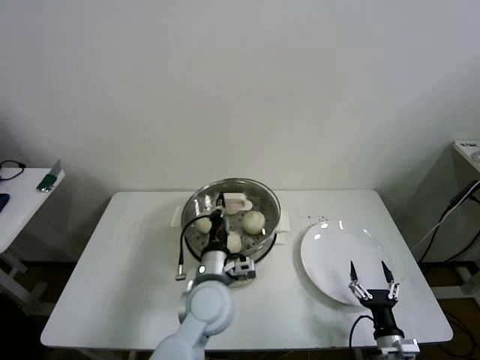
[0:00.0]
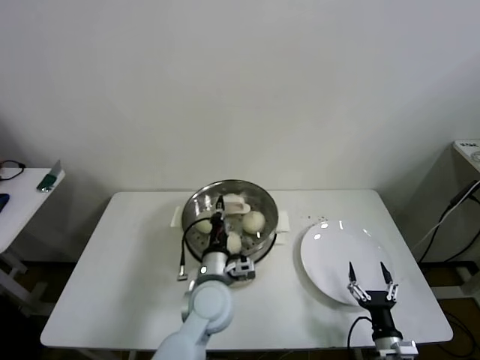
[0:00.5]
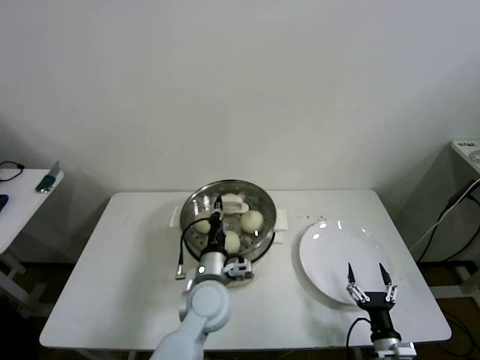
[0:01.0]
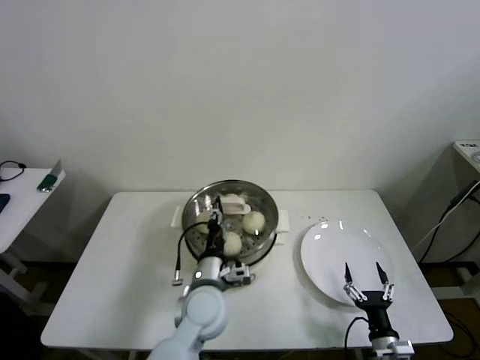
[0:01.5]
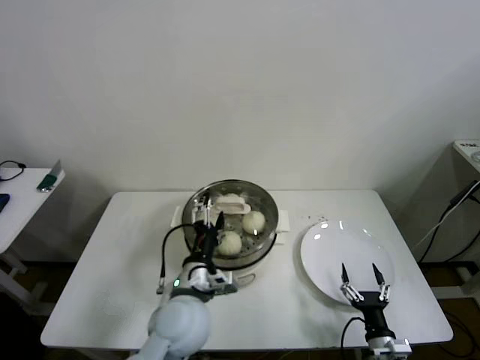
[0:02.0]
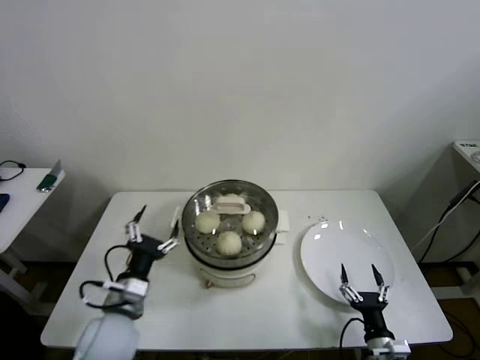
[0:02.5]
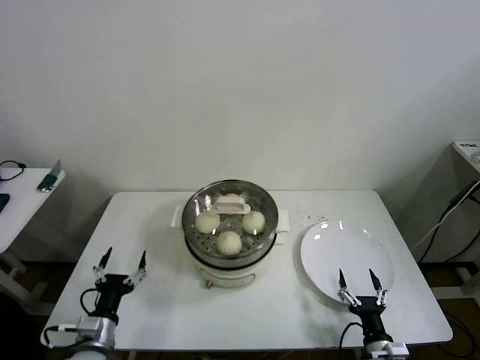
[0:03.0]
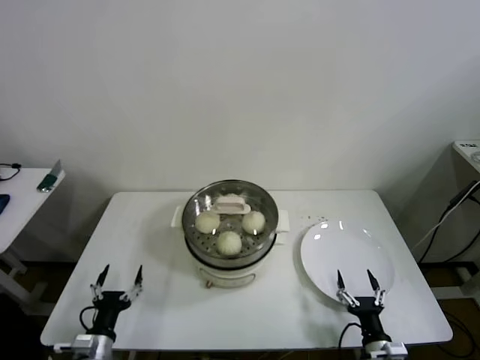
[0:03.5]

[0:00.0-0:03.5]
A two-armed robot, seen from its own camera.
0:00.0 to 0:02.0: The left gripper opens.
0:02.0 to 0:03.5: The left gripper shifts some 30 cm to the left, downward and backward.

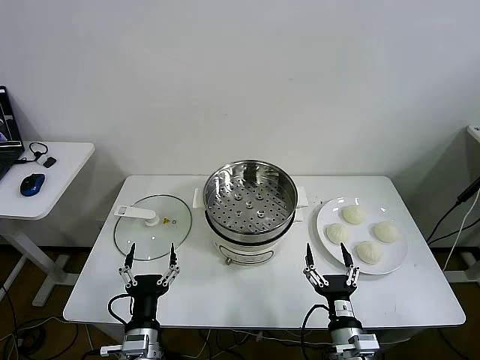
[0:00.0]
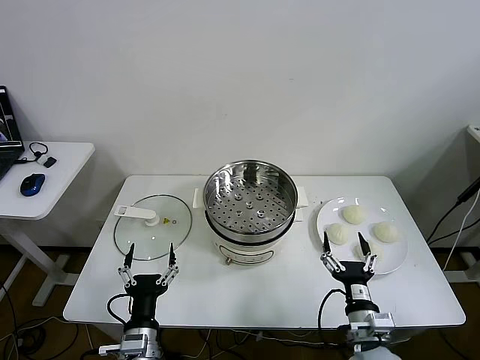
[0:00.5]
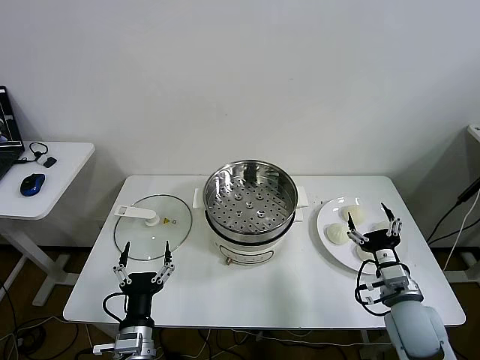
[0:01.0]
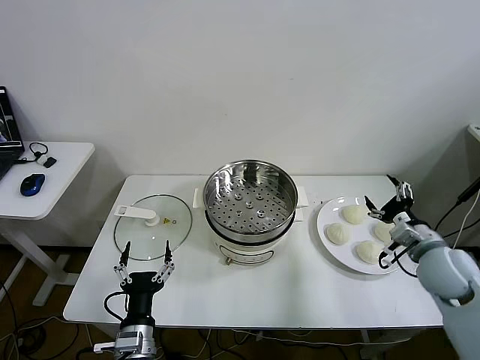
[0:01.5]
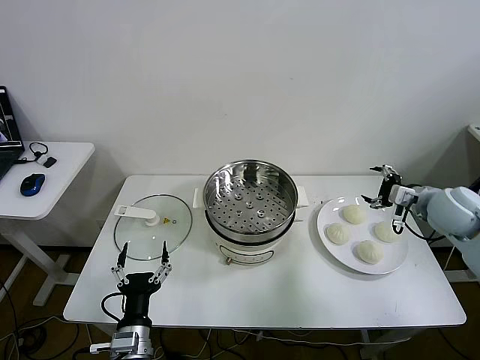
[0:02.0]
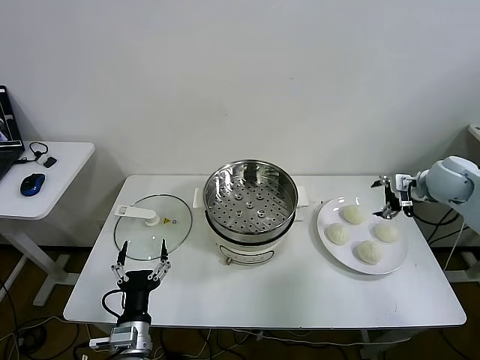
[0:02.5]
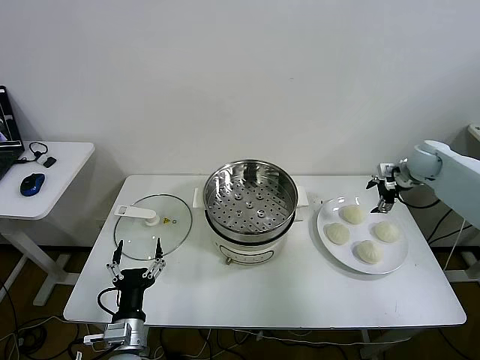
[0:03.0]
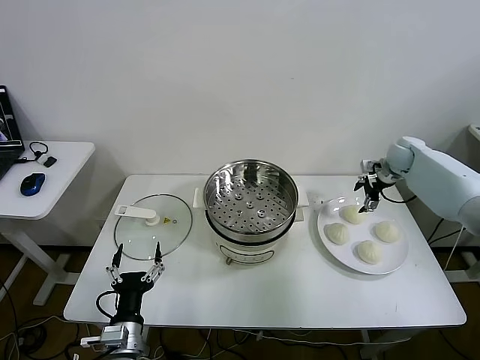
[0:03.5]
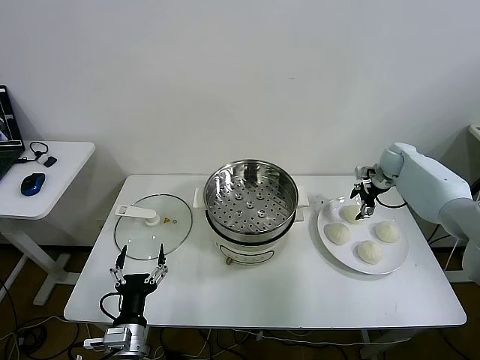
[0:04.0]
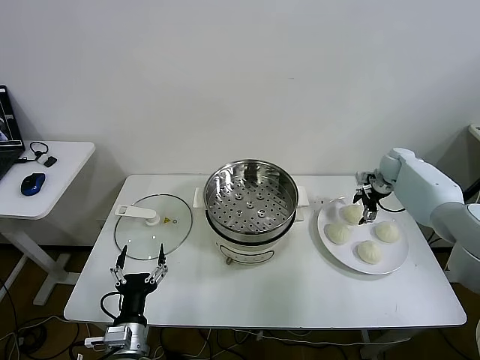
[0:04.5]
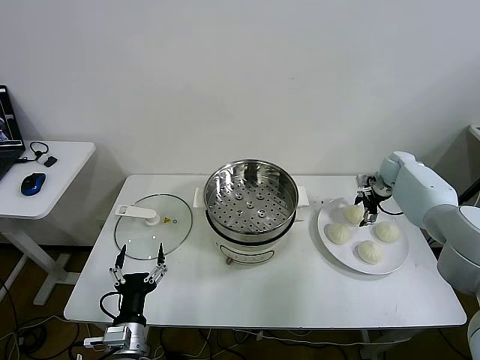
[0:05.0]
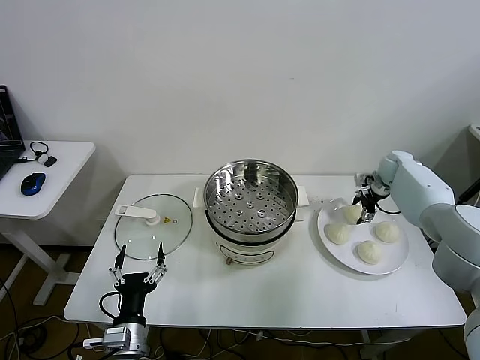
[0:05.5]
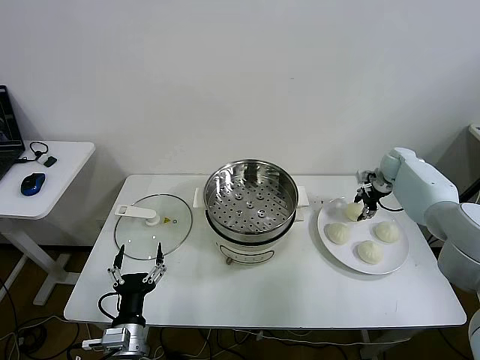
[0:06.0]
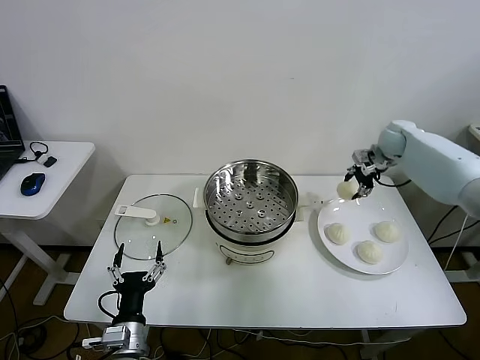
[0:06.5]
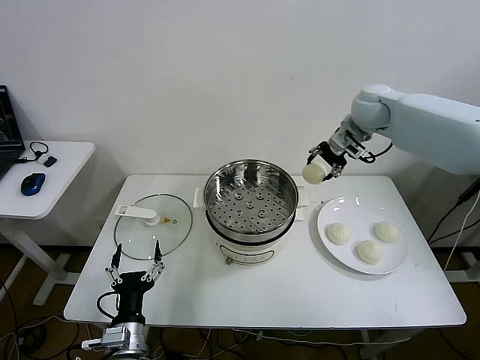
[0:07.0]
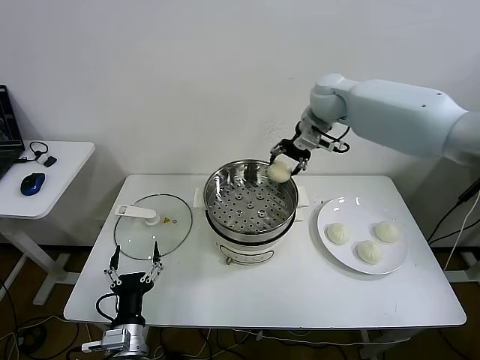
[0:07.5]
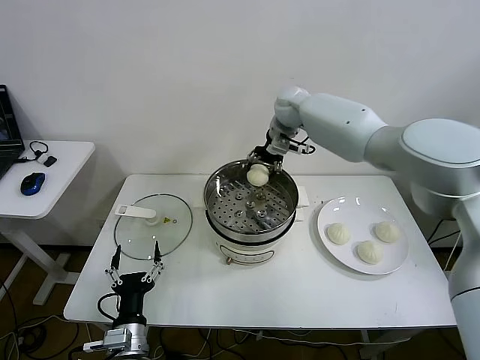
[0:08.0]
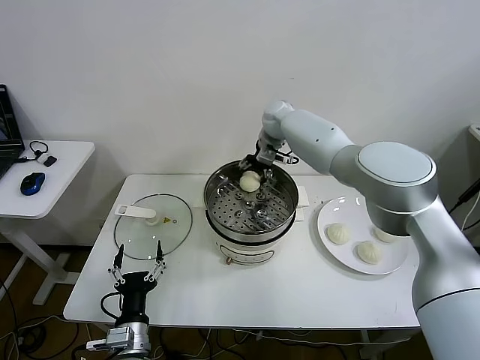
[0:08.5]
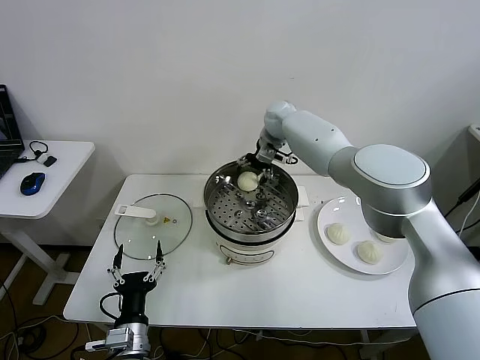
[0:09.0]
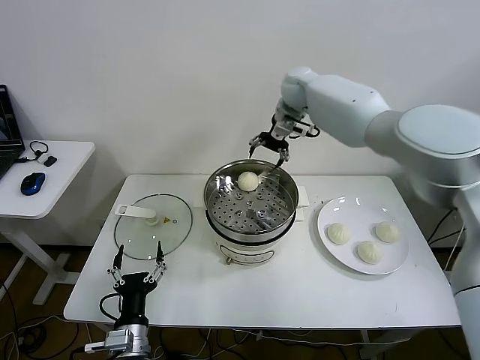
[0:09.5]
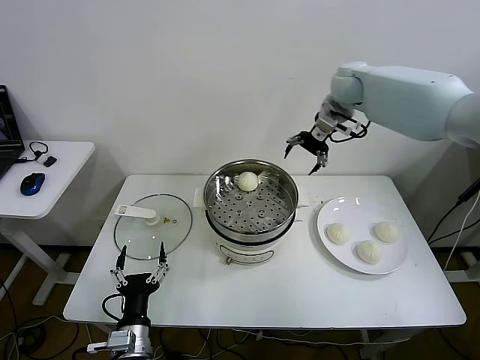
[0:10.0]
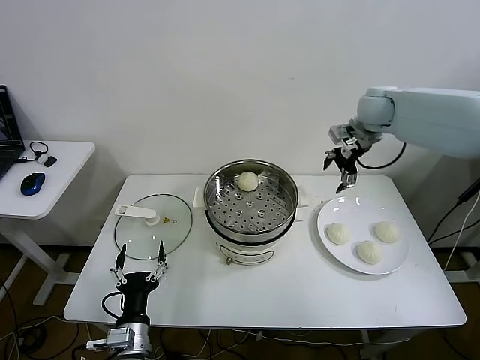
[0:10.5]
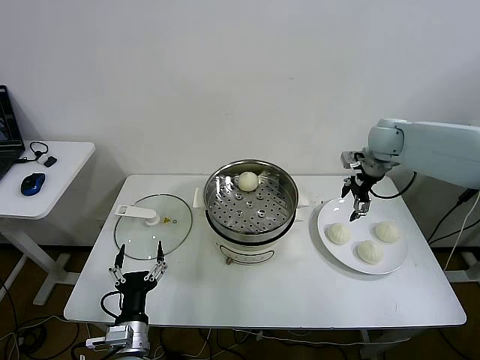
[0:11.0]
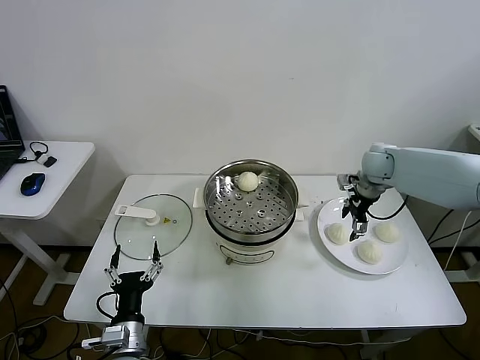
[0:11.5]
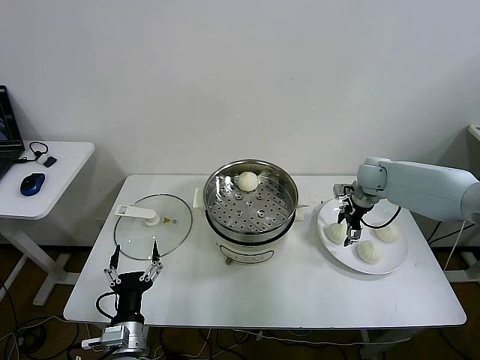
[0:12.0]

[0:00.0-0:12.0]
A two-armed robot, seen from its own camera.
Step, 0:00.0 to 0:05.5: Grasp the baozi in the plate with right gripper.
Step, 0:06.0 to 0:09.0: Place the baozi on the steamer with right gripper.
0:02.0 to 0:04.0: The right gripper heads forward, covering about 20 cm.
0:04.0 to 0:06.0: The right gripper closes up.
0:06.0 to 0:08.0: The right gripper shifts some 35 cm to the left and upward.
0:08.0 to 0:10.0: The right gripper goes some 15 cm to the right and upward.
0:10.0 to 0:12.0: The right gripper shifts approximately 20 cm downward.

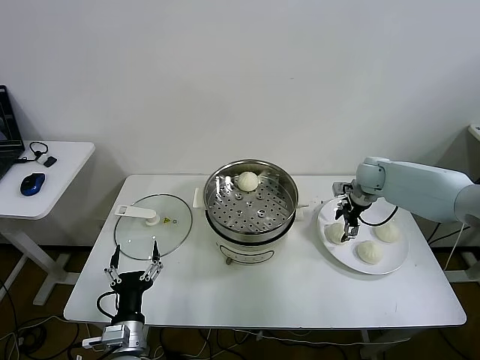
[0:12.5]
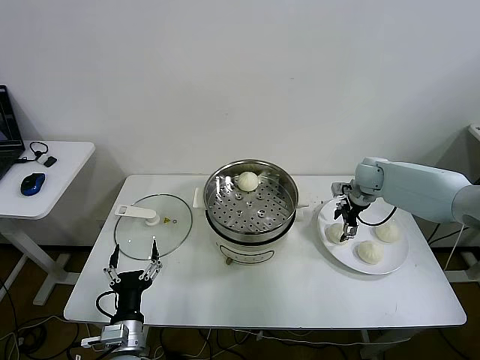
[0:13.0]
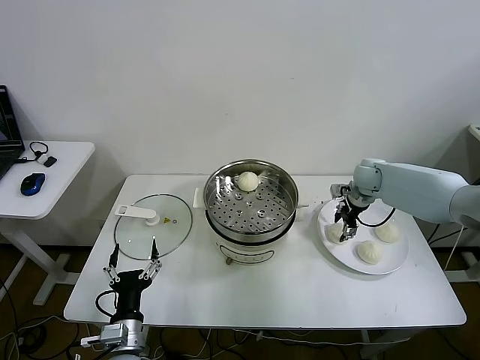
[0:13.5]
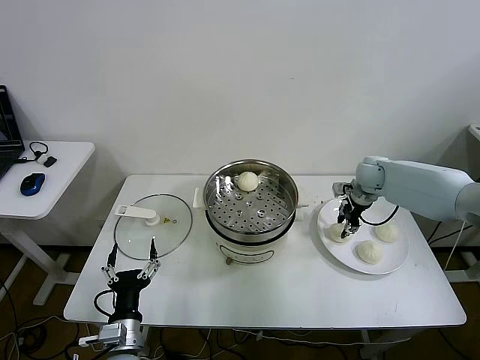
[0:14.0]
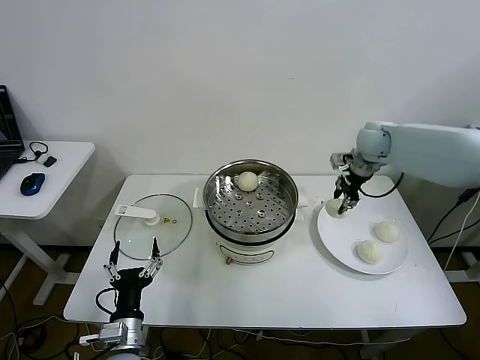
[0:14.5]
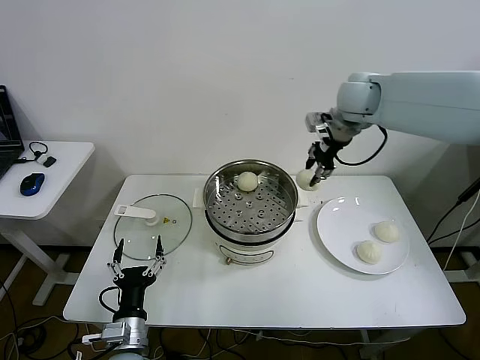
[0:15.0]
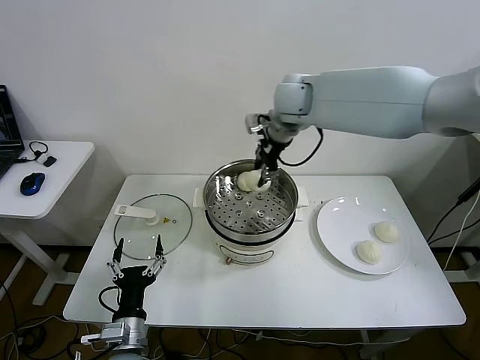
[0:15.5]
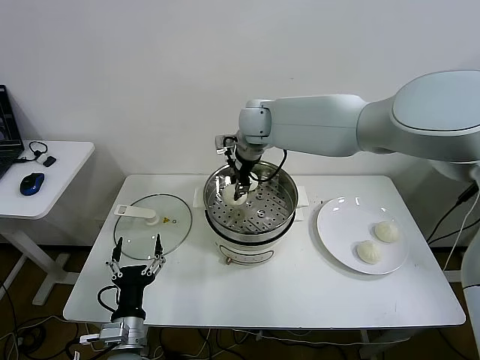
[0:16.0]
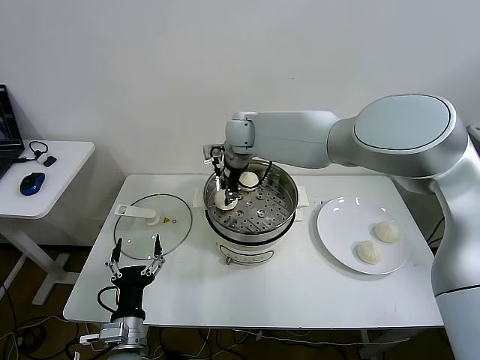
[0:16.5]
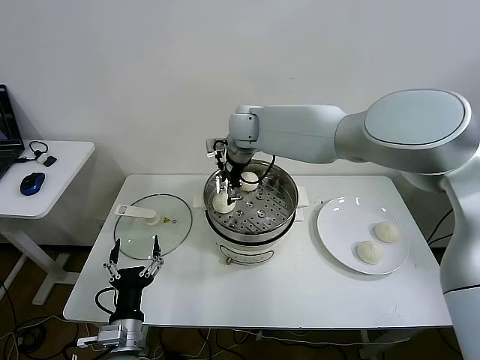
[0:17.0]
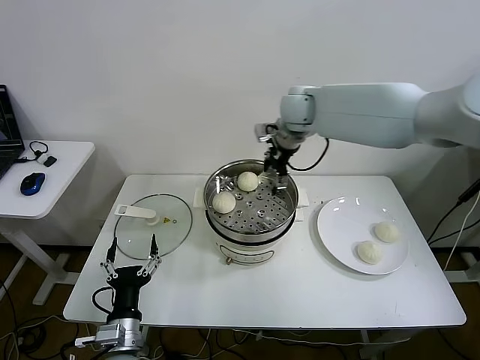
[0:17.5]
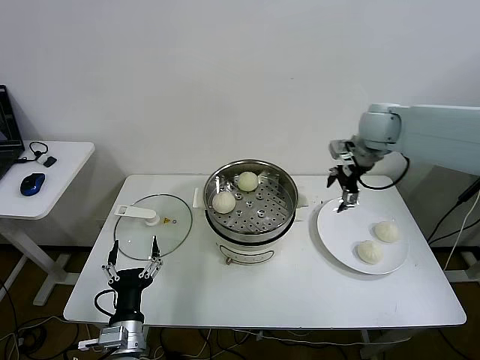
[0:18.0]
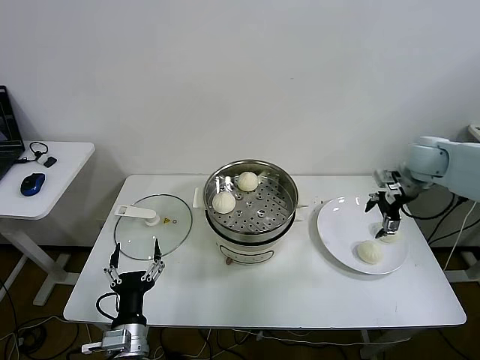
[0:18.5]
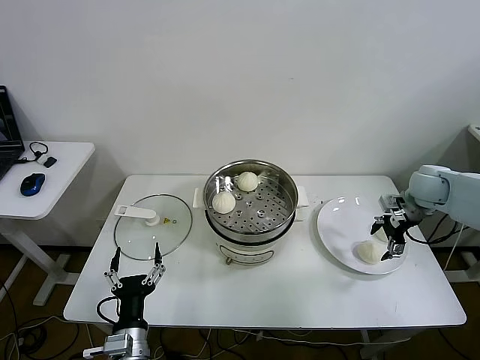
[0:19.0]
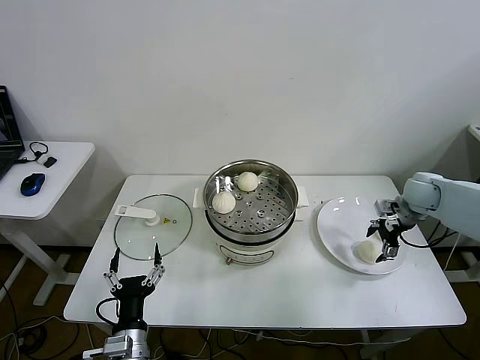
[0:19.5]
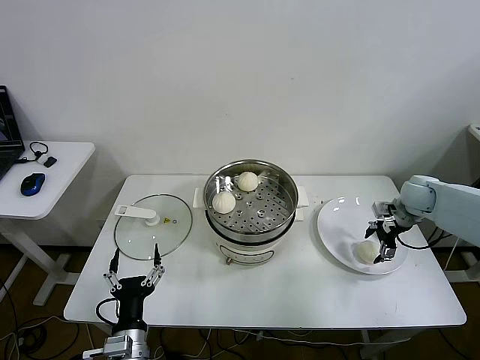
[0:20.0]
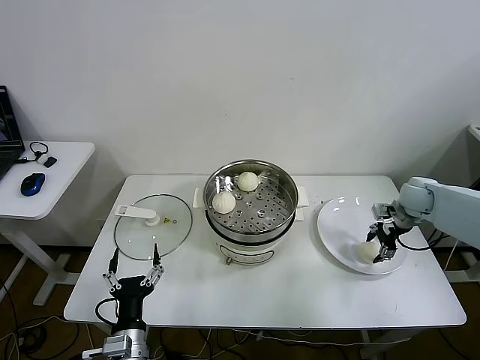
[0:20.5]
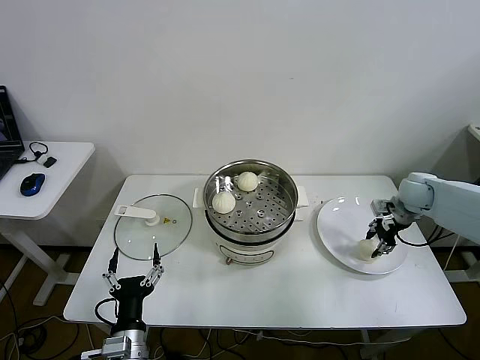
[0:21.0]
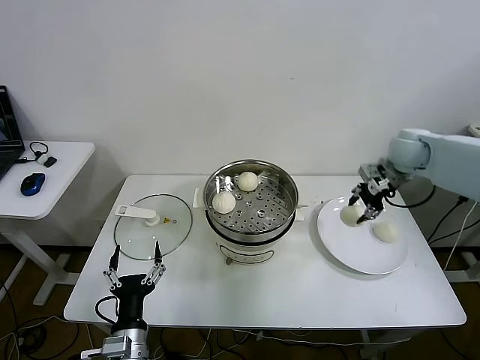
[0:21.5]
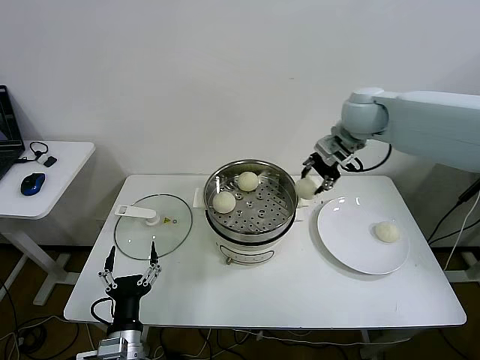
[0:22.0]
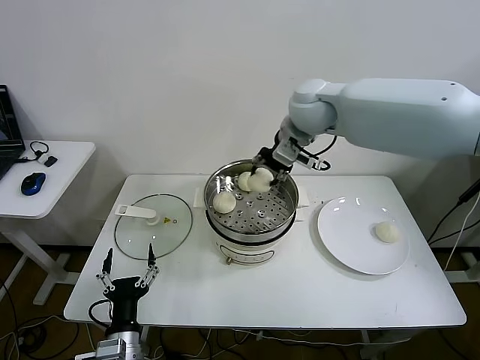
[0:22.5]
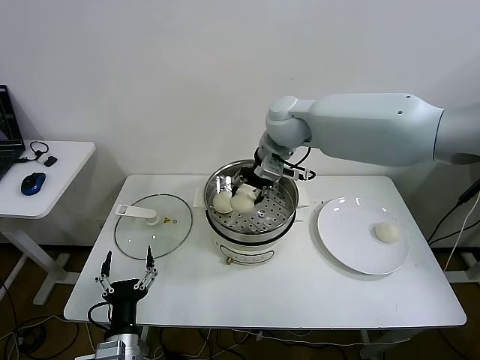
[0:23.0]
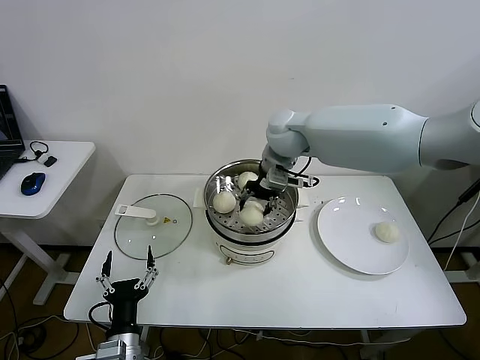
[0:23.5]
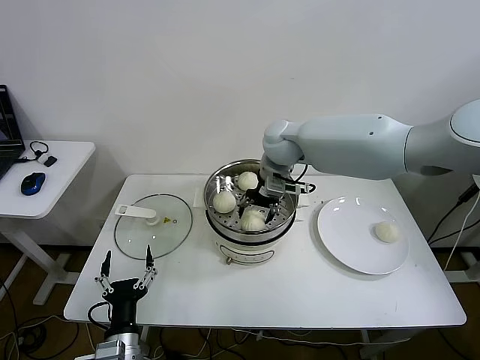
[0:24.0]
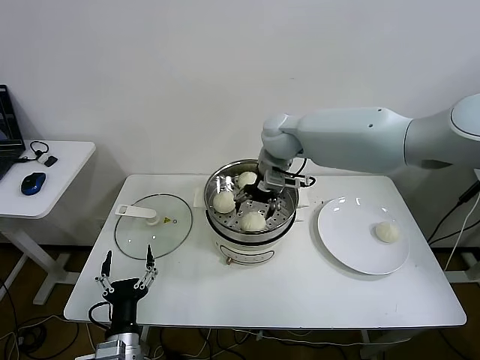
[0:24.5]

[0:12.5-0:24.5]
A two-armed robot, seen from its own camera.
Step, 0:14.0 to 0:16.5: Place the baozi on the steamer with right gripper.
Step, 0:17.5 to 0:20.5: Grasp the baozi in the plate with right gripper.
Step, 0:21.0 to 0:24.0: Place the baozi on the steamer with right gripper.
0:12.5 to 0:14.5: The right gripper goes about 15 cm upward, and closes.
0:14.5 to 0:16.5: The right gripper heads to the left, covering approximately 30 cm.
0:16.5 to 0:18.5: The right gripper shifts about 40 cm to the right, and opens its fingers.
0:18.5 to 0:20.5: The right gripper heads downward, covering about 10 cm, and closes.
0:20.5 to 0:22.5: The right gripper shifts roughly 40 cm to the left and upward.
0:22.5 to 0:24.5: The right gripper moves downward, roughly 10 cm, and opens its fingers.
